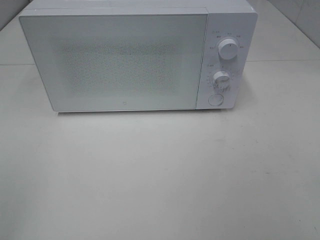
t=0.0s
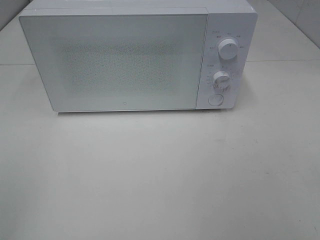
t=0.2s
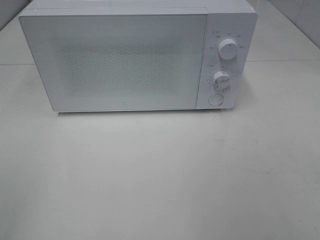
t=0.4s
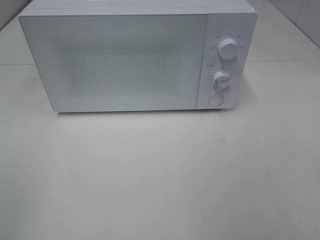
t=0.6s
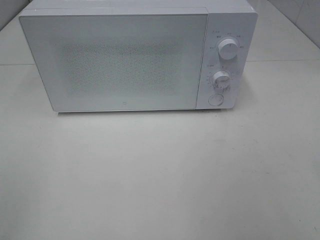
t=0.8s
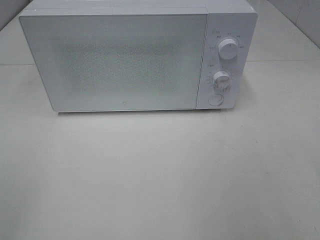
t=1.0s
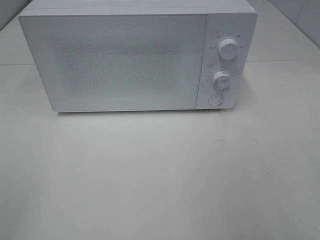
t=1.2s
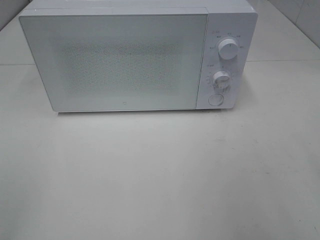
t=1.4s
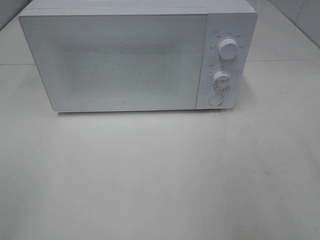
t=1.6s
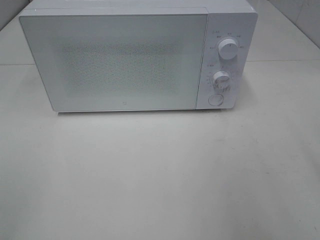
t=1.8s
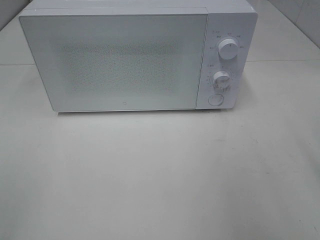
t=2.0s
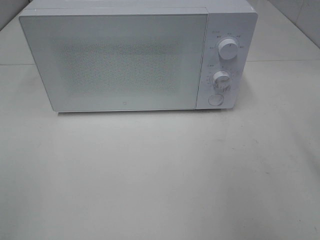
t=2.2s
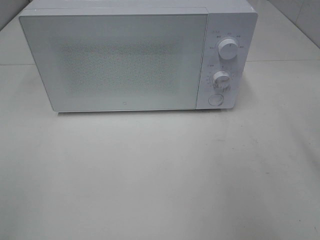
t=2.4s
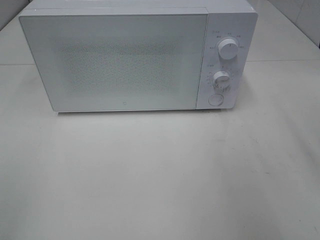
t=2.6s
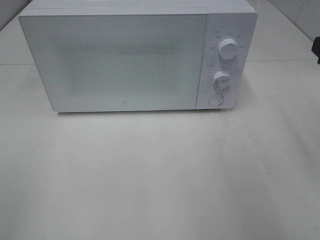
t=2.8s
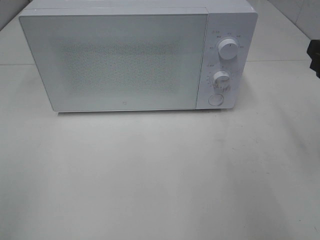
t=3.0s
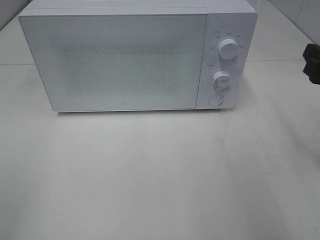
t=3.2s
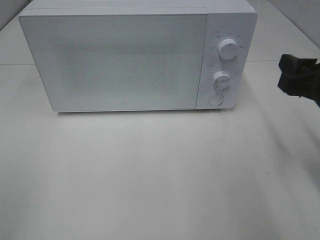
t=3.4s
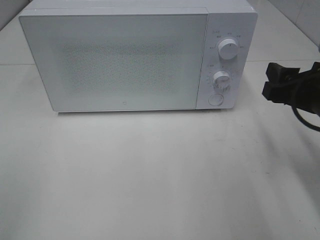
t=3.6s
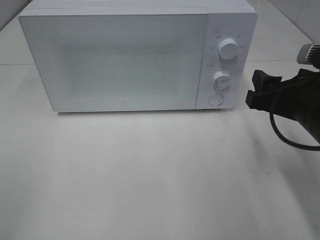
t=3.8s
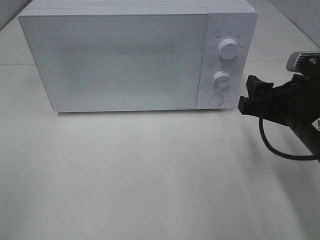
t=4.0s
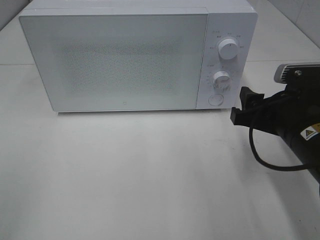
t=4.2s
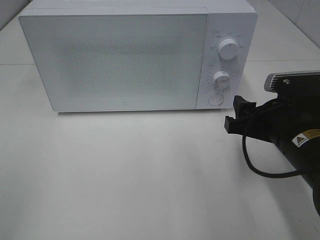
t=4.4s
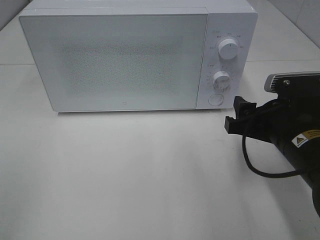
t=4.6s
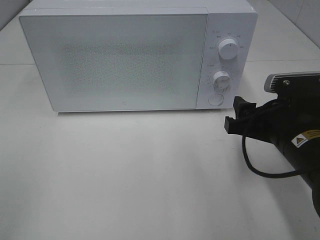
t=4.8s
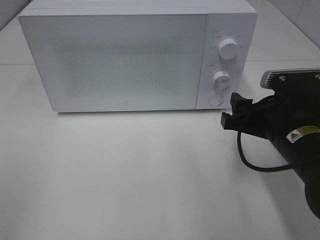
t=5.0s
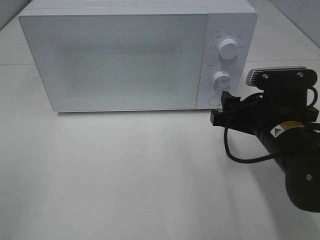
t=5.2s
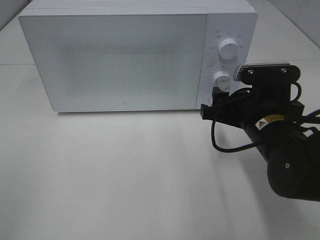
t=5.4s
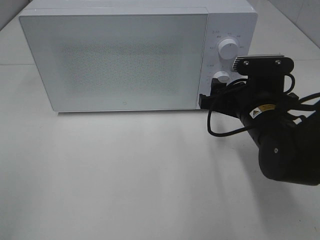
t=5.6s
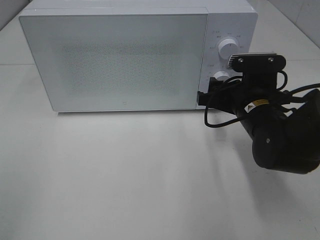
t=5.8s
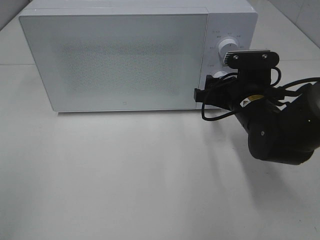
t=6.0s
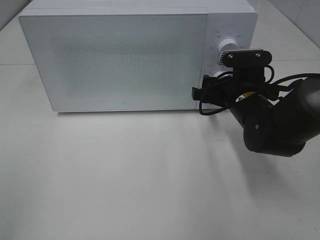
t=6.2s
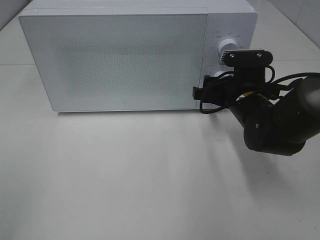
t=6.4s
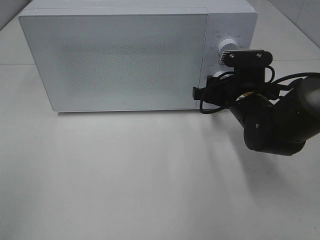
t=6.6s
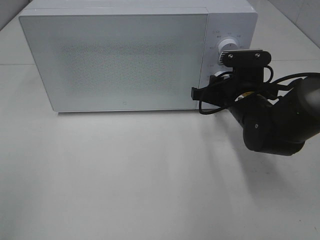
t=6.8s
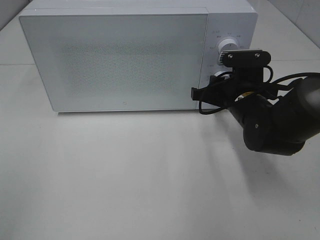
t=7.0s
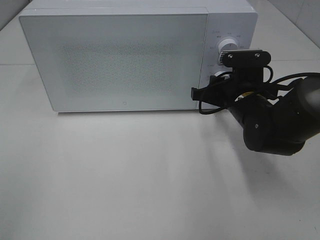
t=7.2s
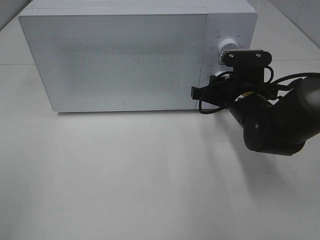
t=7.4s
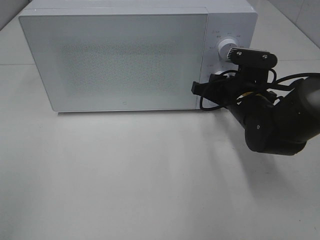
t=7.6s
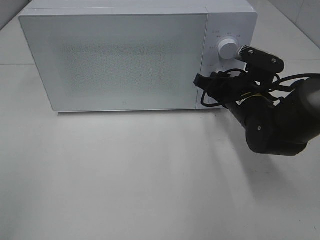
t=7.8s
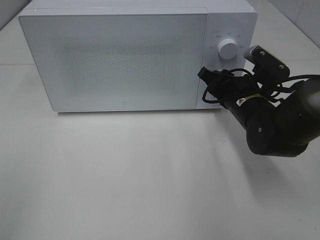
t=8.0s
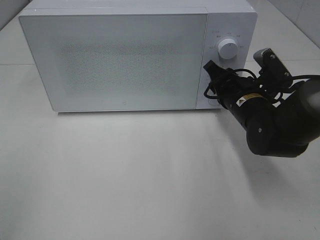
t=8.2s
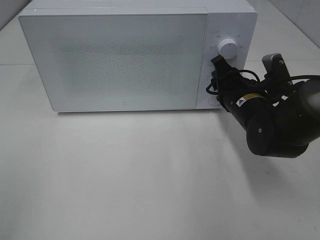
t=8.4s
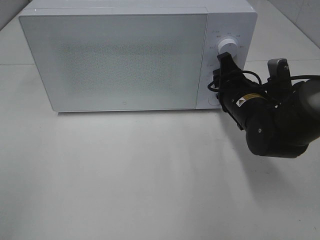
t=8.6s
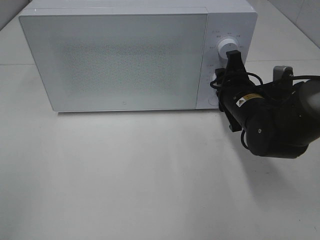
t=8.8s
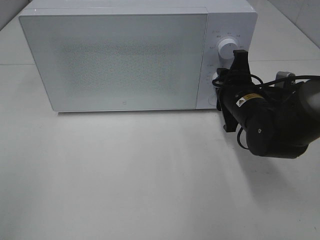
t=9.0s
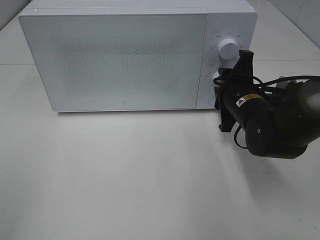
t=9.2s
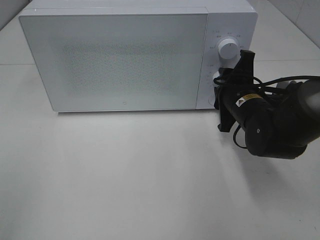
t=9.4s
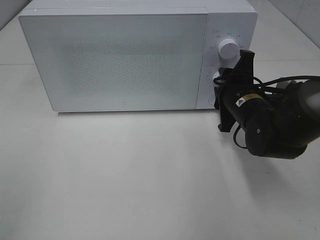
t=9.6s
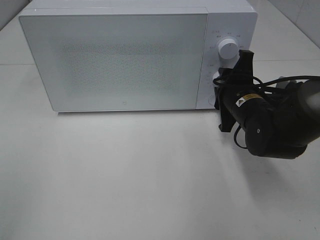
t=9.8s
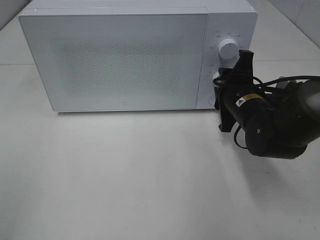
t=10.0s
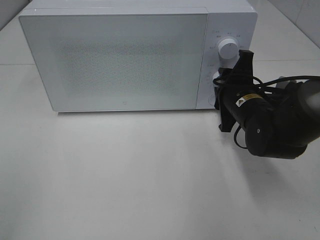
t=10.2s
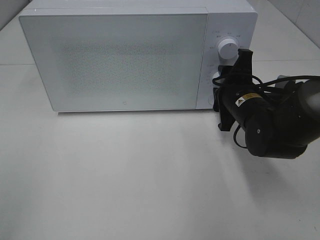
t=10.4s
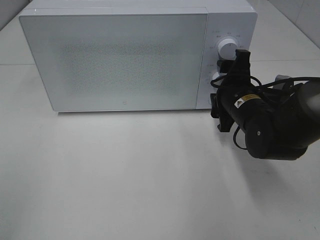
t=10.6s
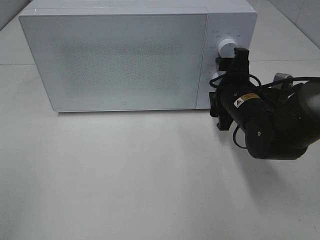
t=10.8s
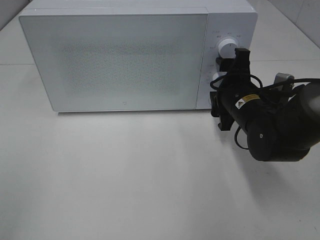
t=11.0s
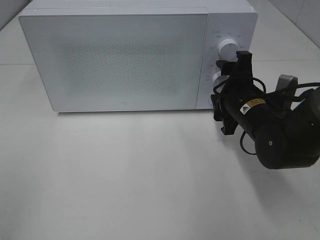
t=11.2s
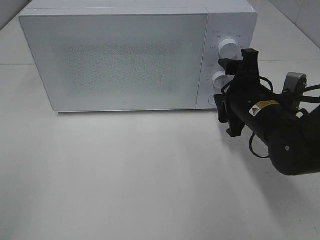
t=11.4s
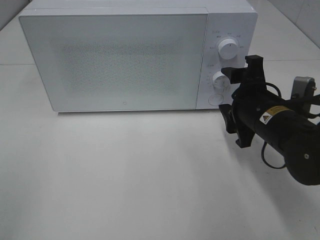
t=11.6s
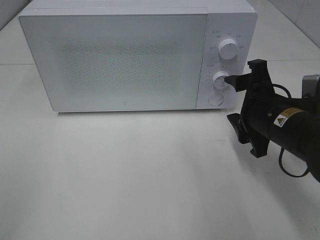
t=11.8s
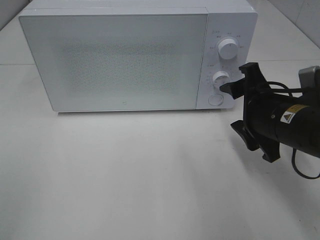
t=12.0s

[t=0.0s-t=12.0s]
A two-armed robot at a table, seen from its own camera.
Task of the whole recording: Heat Sandwich.
Step, t=0.0s to t=10.6s: Right hand: twist timer button.
t=3.0s to t=4.4s: The right gripper is displaced downward and to the left by some 15 cm.
t=4.4s to t=6.0s: The right gripper travels forward by some 10 cm.
t=6.0s to t=7.6s: The right gripper closes its fingers.
t=9.0s to t=10.4s: The grippers move only a little.
t=10.4s to t=12.0s: The right gripper is displaced backward by about 10 cm.

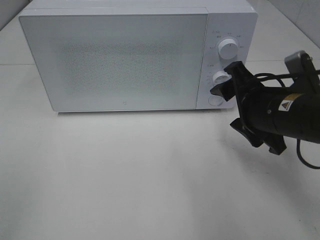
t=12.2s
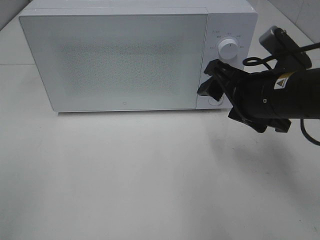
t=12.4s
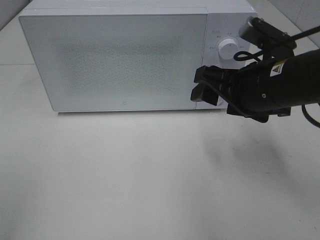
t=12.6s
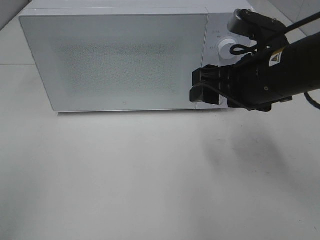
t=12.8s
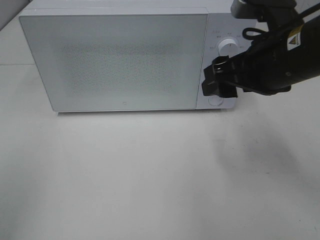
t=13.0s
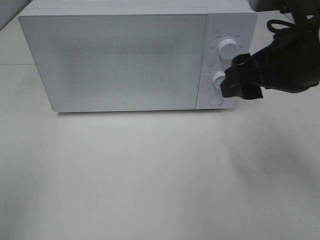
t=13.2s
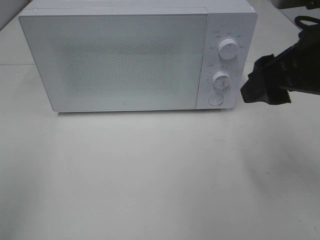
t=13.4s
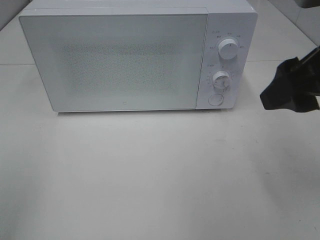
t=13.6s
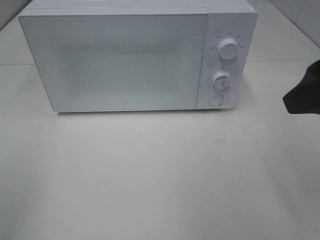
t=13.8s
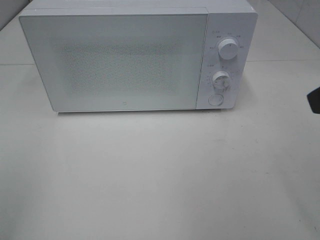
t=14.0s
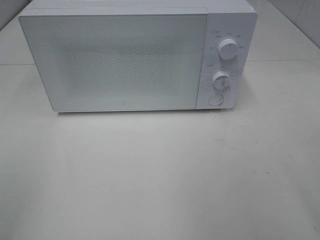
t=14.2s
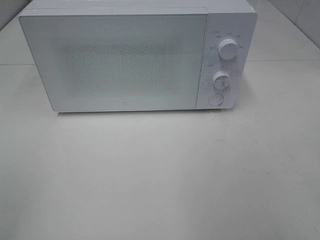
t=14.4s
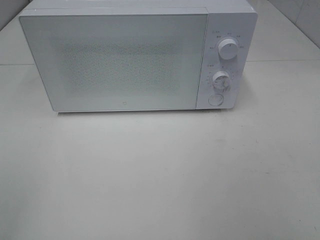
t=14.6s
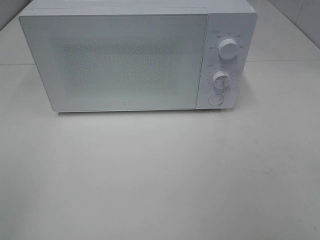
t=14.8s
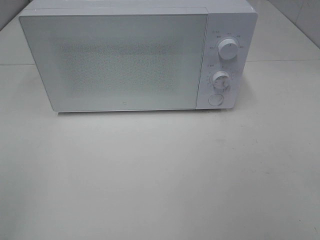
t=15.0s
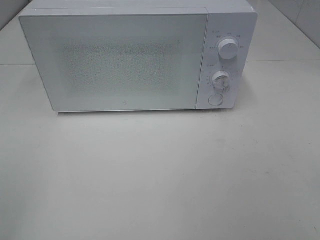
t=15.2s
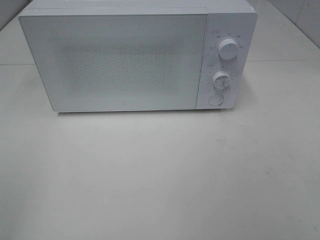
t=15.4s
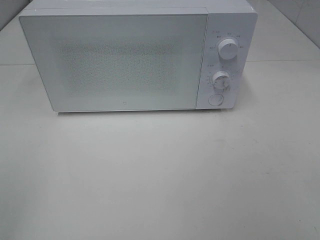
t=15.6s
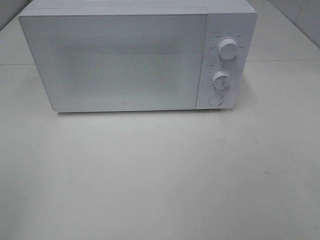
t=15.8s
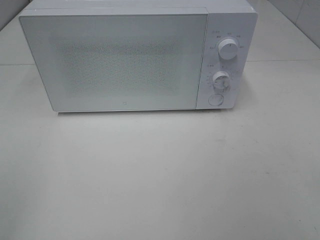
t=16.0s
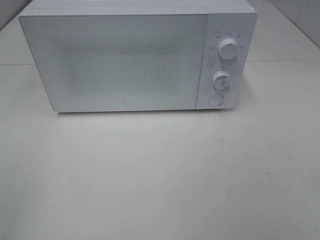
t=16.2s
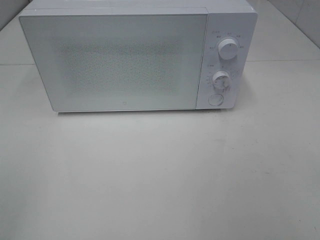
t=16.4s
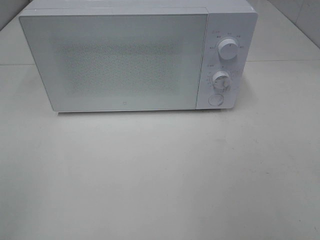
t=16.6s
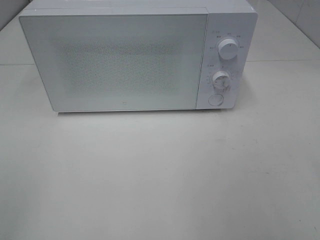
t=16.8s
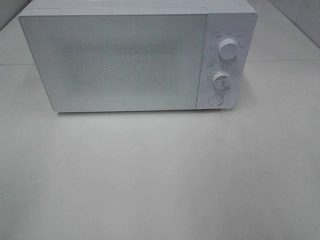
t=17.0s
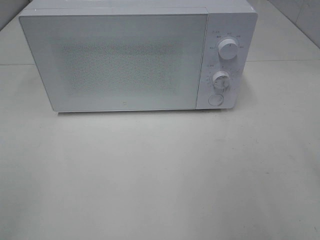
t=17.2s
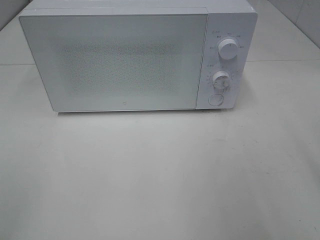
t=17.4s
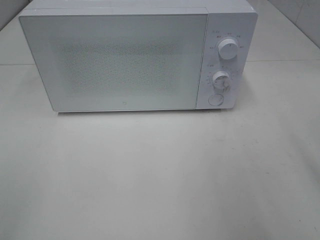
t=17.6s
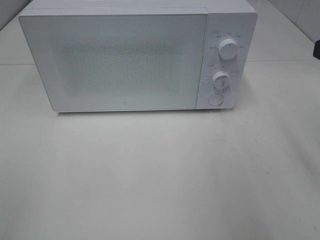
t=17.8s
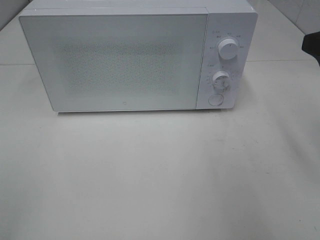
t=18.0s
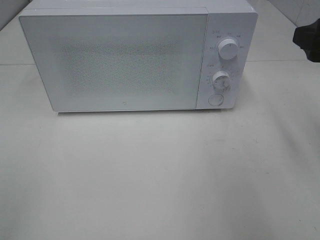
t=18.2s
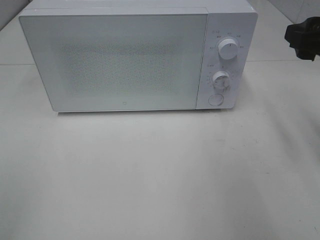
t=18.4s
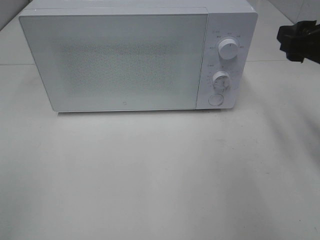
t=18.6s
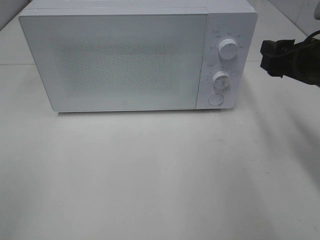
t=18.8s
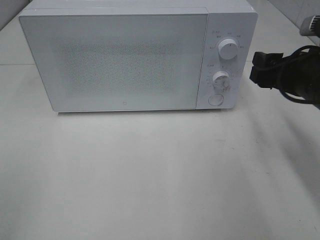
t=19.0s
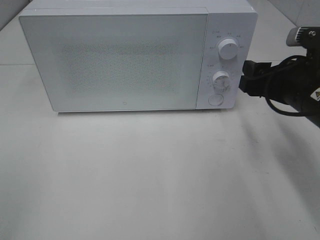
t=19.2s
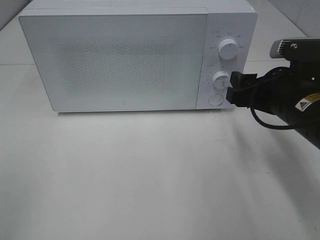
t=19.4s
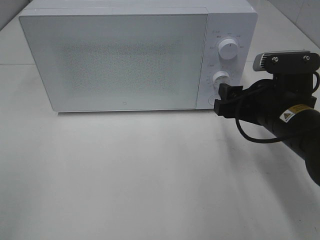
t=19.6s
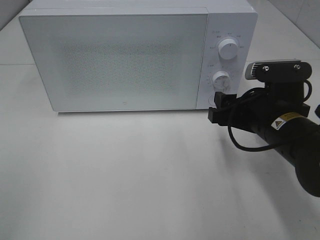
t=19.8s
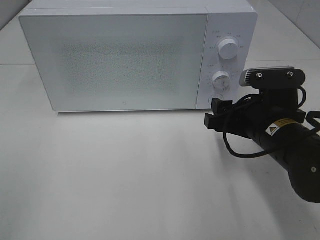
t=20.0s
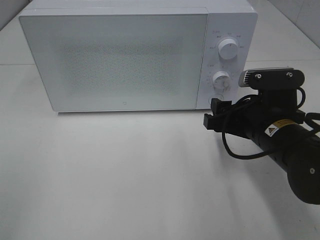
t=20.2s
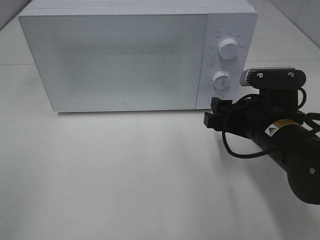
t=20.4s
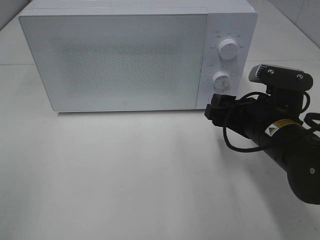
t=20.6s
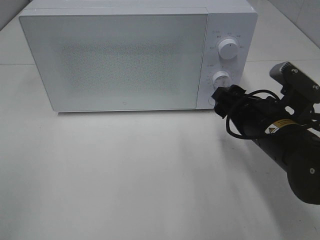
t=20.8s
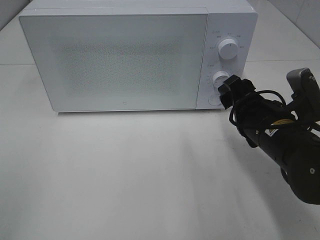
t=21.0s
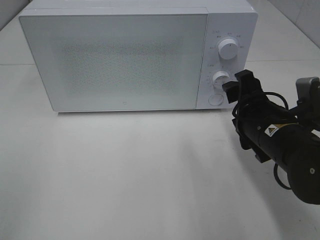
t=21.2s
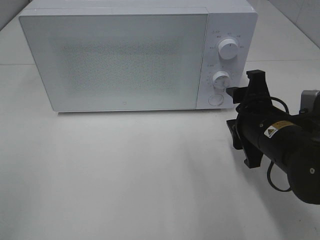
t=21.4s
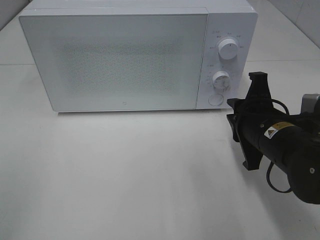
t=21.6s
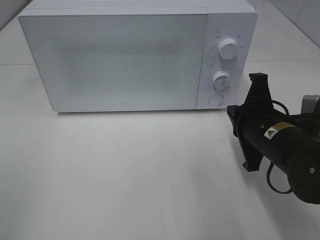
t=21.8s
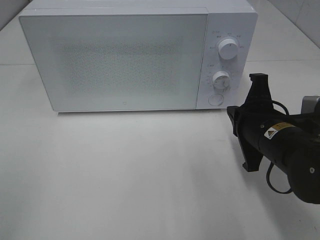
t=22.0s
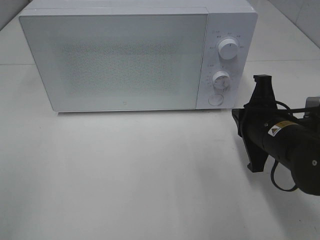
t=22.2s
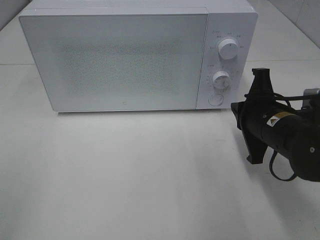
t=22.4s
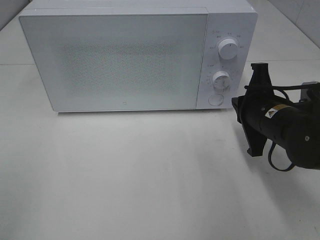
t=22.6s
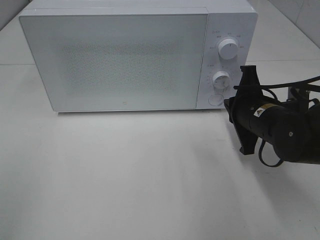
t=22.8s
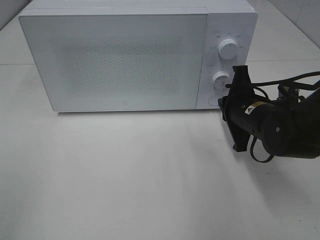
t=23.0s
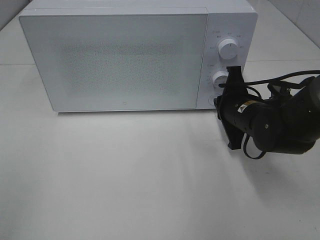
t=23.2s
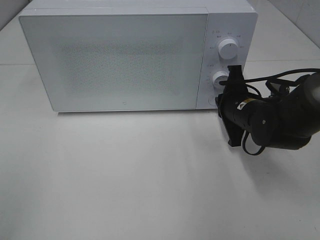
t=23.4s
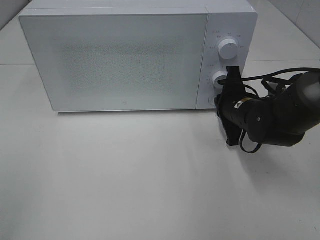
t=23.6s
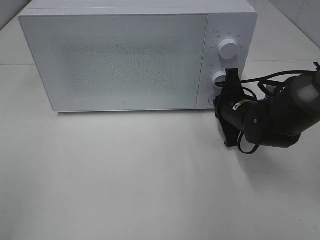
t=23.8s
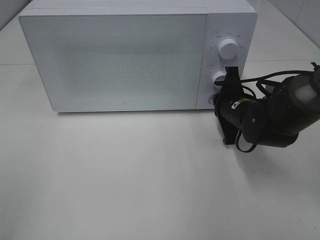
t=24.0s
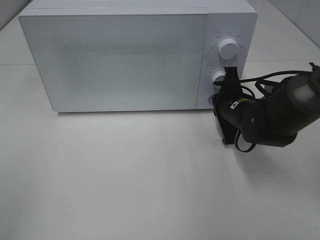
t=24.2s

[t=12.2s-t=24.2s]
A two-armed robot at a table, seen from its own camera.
Task of the whole recording: Heat Sandwich.
t=12.2s to t=13.8s: The right gripper shifts some 15 cm upward and backward.
t=13.8s to t=15.2s: The right gripper is displaced backward and to the right by approximately 15 cm.
t=16.6s to t=18.2s: The right gripper shifts some 20 cm forward.
t=18.2s to t=19.8s: The right gripper moves downward and to the left, roughly 15 cm.
t=21.2s to t=22.6s: The right gripper closes its fingers.
t=22.6s to t=24.2s: The right gripper heads forward, covering some 10 cm.
